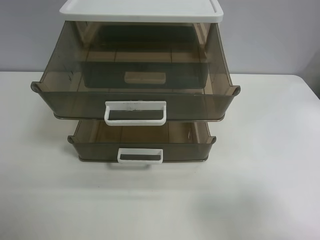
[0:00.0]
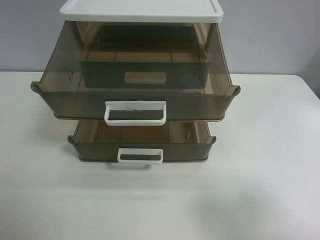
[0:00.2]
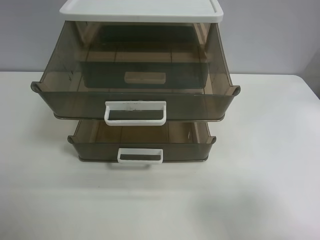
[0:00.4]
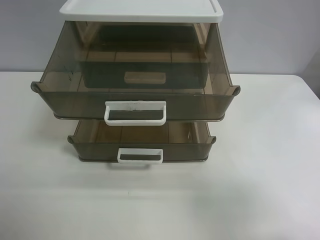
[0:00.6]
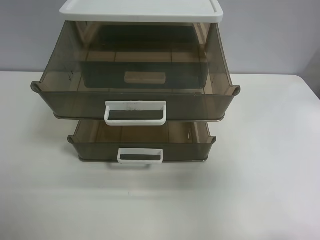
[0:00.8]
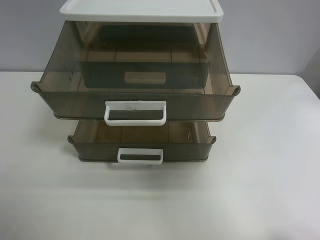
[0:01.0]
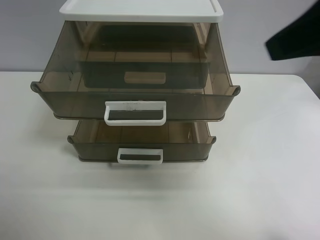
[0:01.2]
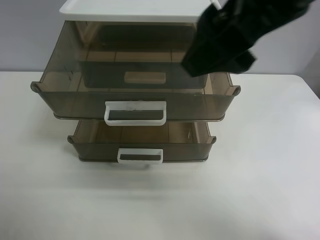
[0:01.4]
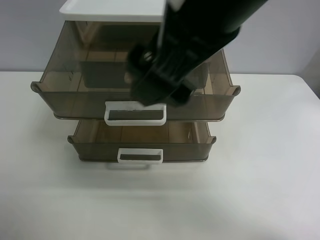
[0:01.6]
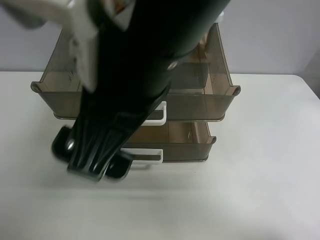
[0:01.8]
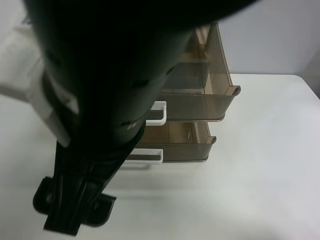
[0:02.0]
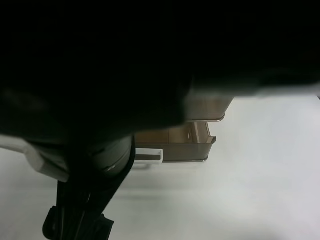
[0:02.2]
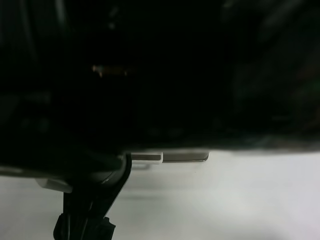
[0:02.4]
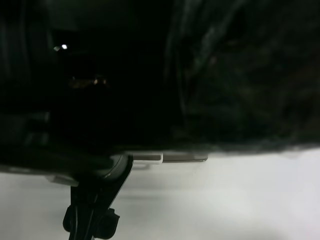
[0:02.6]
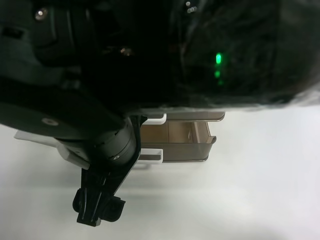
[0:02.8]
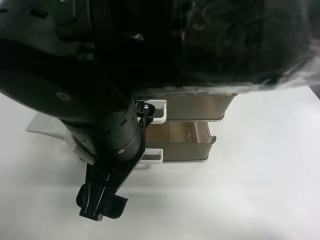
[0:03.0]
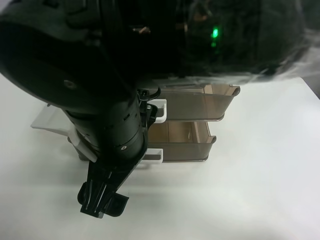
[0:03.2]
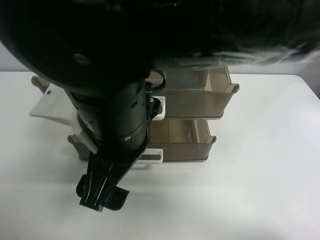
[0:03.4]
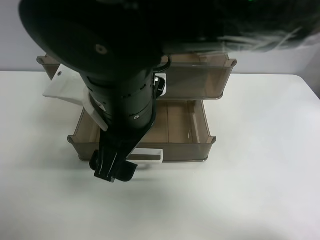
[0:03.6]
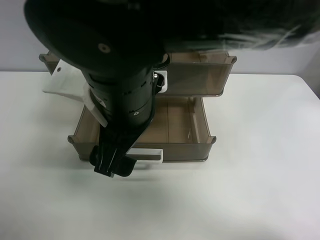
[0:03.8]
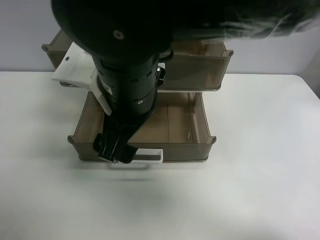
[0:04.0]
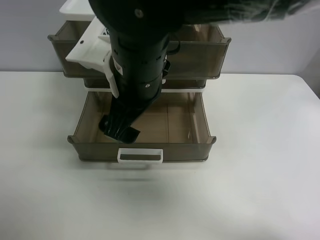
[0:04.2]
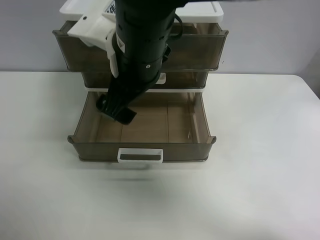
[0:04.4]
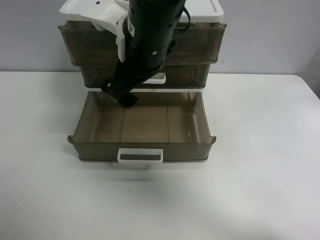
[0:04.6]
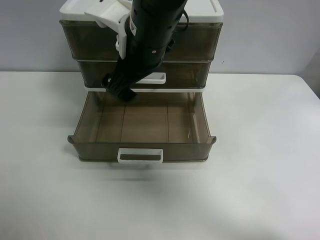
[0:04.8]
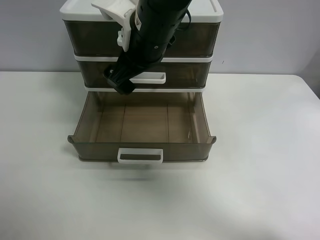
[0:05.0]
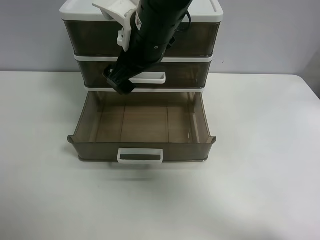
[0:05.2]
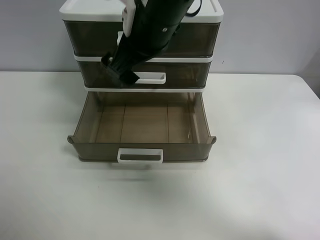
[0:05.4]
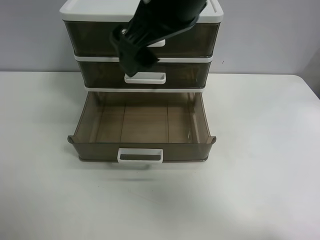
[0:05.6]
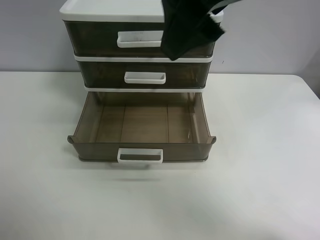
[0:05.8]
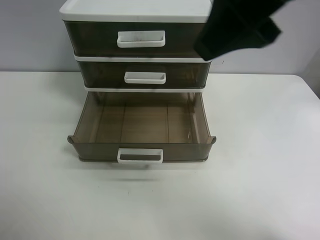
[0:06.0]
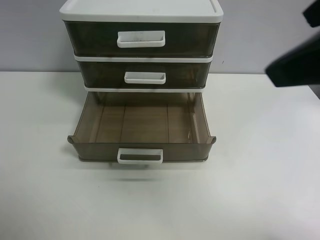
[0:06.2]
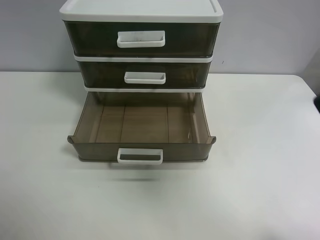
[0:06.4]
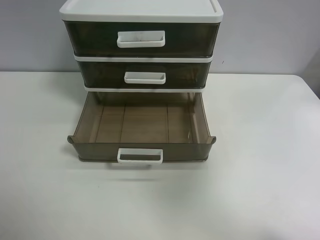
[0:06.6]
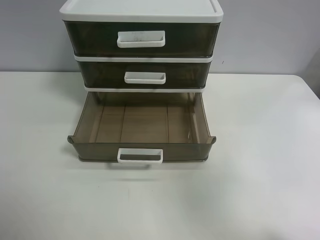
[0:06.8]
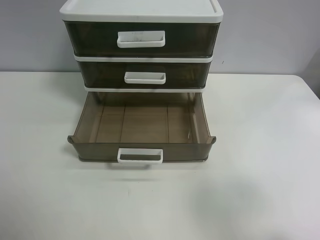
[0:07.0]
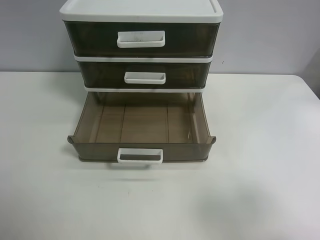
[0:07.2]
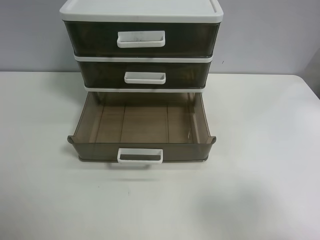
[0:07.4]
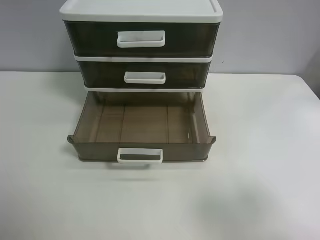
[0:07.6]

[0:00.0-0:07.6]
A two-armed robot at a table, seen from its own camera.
Task of the whole recording: close the top drawer.
Step, 0:00.0 to 0:03.2: Use the right gripper to touch the topmost layer of the storage cabinet.
Step, 0:03.4 to 0:05.2: Push the top drawer closed.
0:00.0 to 0:01.6: The right gripper travels to the left and forward by approximately 30 cm.
0:01.6 to 0:03.0: The right gripper is displaced downward and to the left by roughly 15 cm.
0:03.0 to 0:04.6: The right gripper shifts some 10 cm forward.
0:04.6 to 0:06.0: The right gripper is displaced to the right, upward and backward by about 20 cm.
0:06.0 to 0:07.6: The right gripper is displaced to the right, downward and backward by roughly 25 cm.
